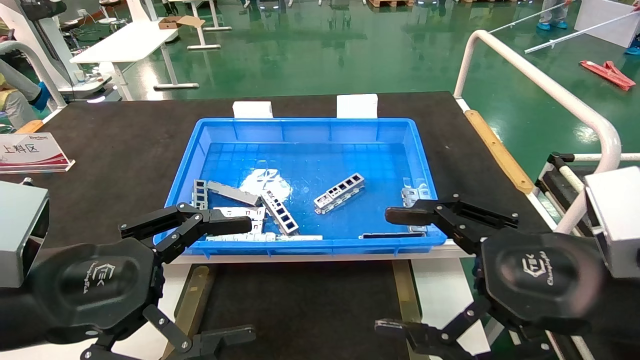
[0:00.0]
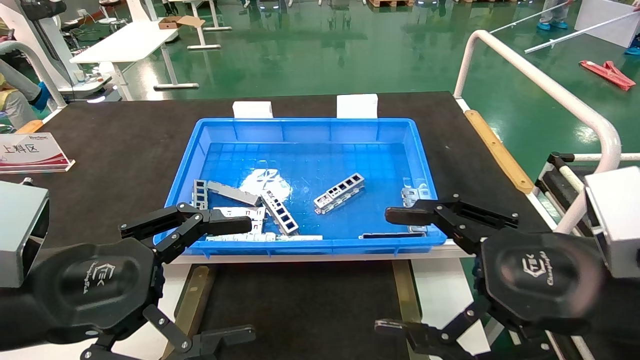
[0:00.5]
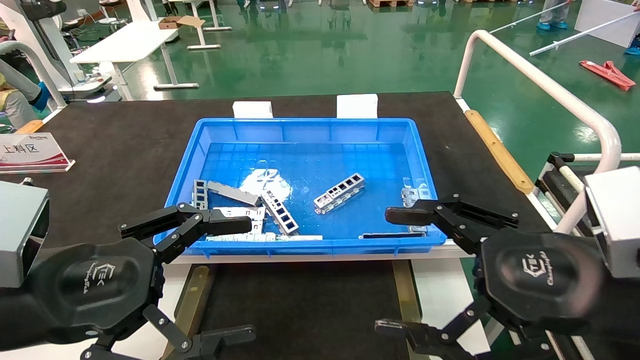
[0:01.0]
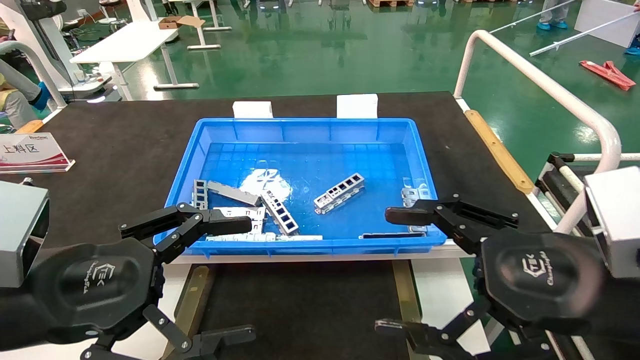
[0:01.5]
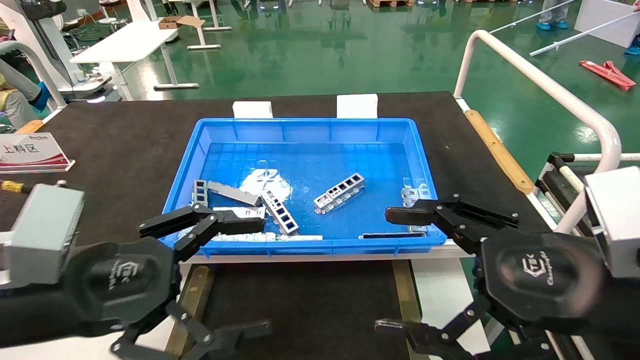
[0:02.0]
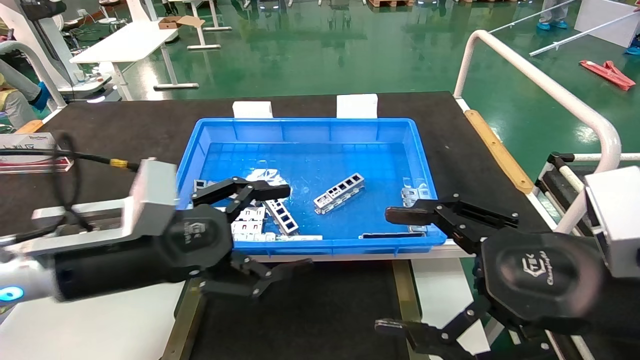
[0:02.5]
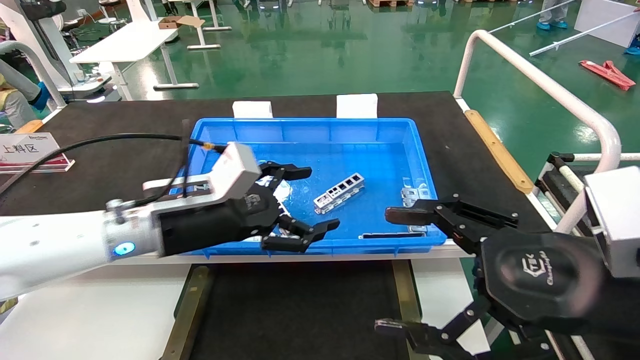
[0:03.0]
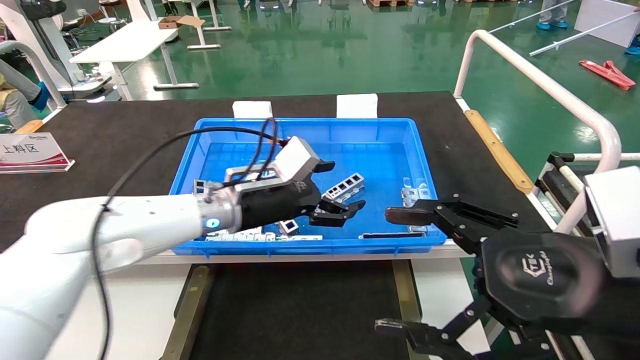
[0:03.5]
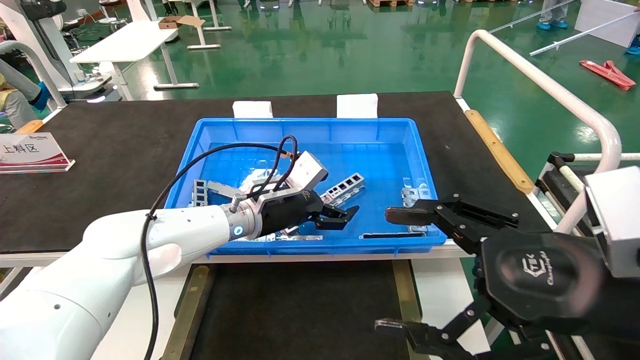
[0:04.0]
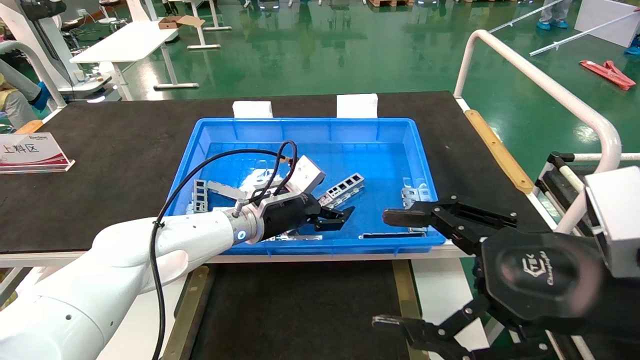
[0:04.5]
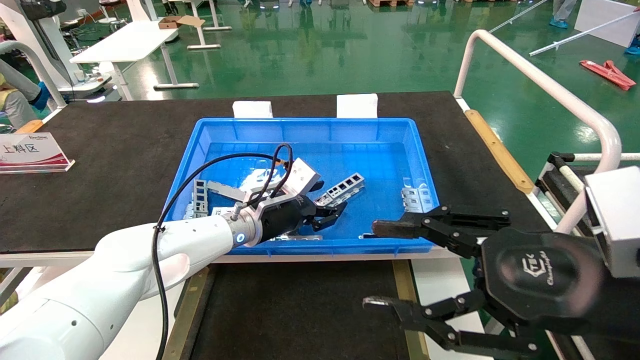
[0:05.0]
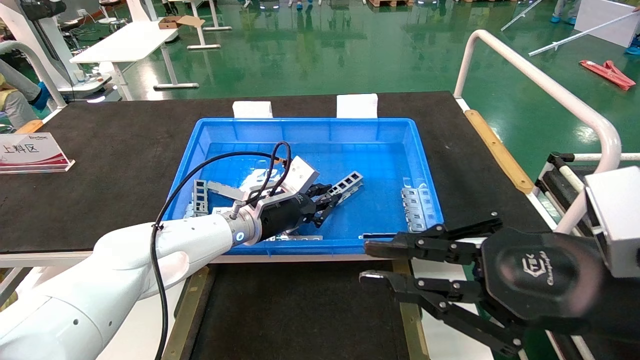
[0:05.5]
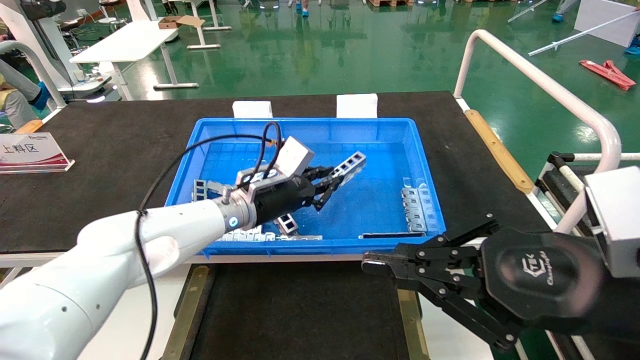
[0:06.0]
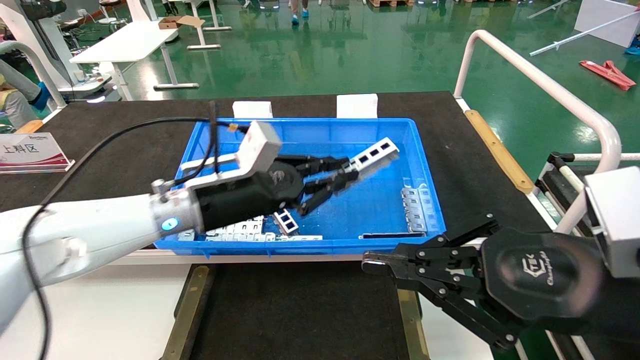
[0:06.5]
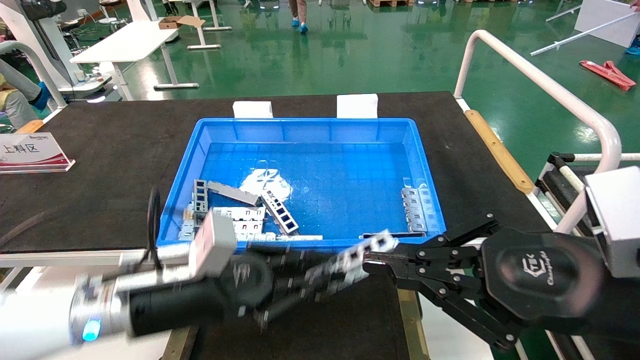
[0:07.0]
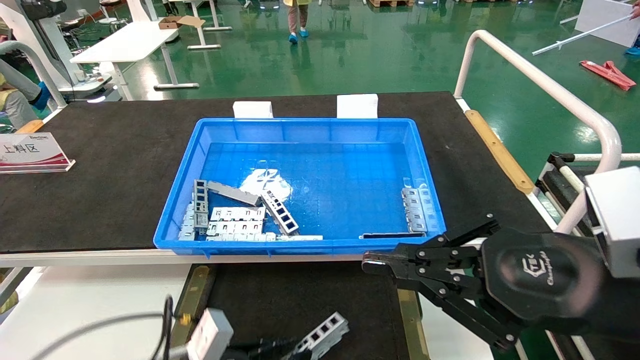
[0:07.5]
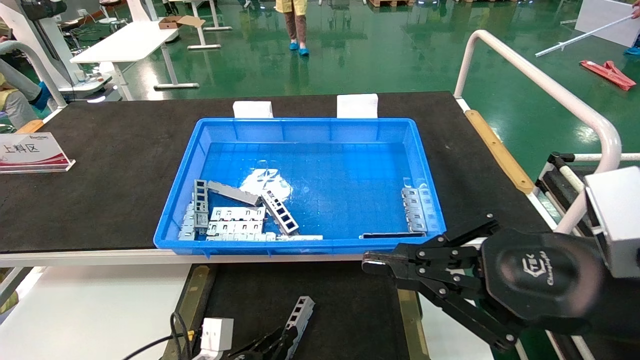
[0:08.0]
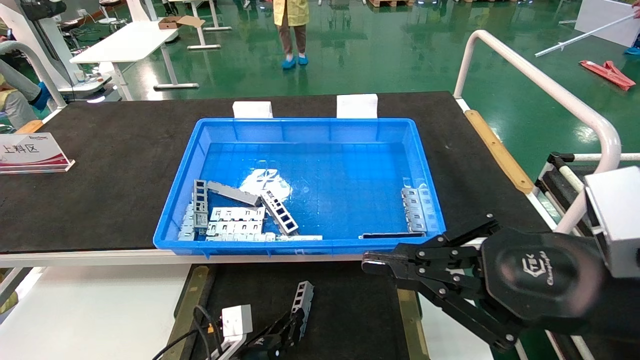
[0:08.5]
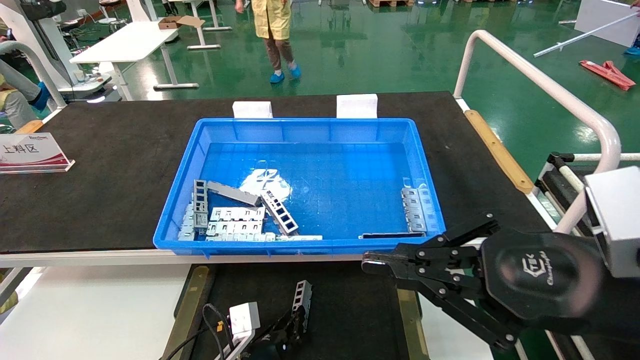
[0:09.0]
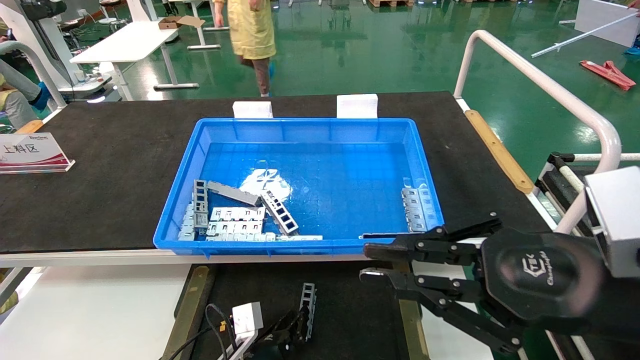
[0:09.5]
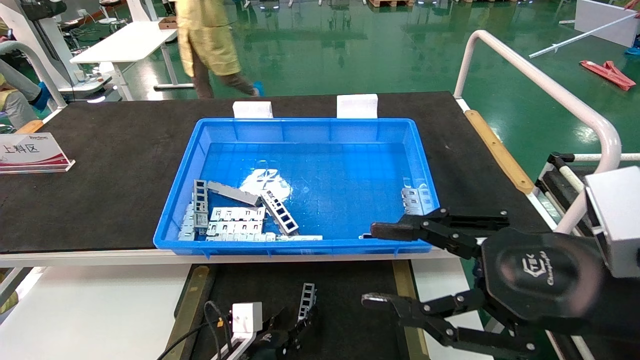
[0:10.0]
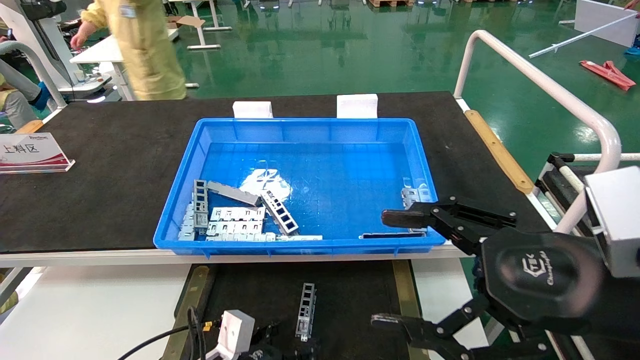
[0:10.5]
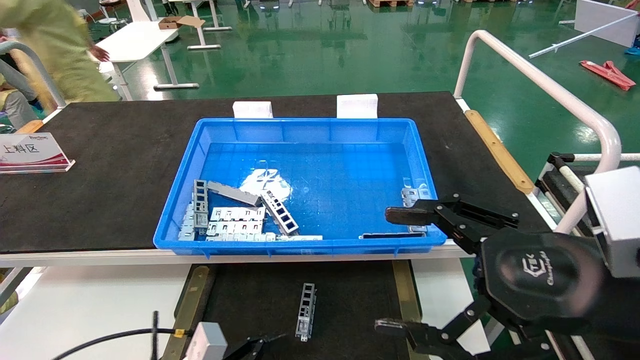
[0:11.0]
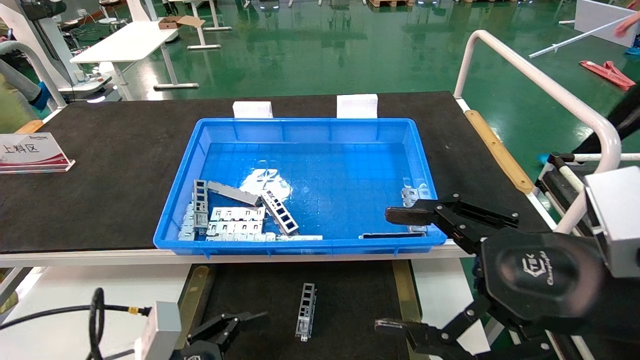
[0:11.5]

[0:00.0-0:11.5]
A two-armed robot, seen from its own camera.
Task of the whole recording: Grasp the part with one hand and place it on the black container.
Step, 0:02.0 to 0:05.5: Pick up the front USB bracket from the feeding area.
Step, 0:06.0 to 0:09.5: Place the front USB bracket into the box.
0:00.0 to 0:02.0: The grippers move only a little.
0:02.0 to 0:04.0: The left gripper goes approximately 30 cm forward and to the right.
0:04.0 to 0:06.0: The right gripper closes up, while the left gripper closes up.
0:06.0 to 0:07.5: The left gripper shifts roughly 30 cm backward, downward and to the left.
0:07.5 to 0:09.5: The left gripper shifts approximately 15 cm downward, to the right and forward.
0:09.5 to 0:11.5: The right gripper opens its fingers, while the left gripper travels upward, backward and to the left by approximately 20 cm, and opens up.

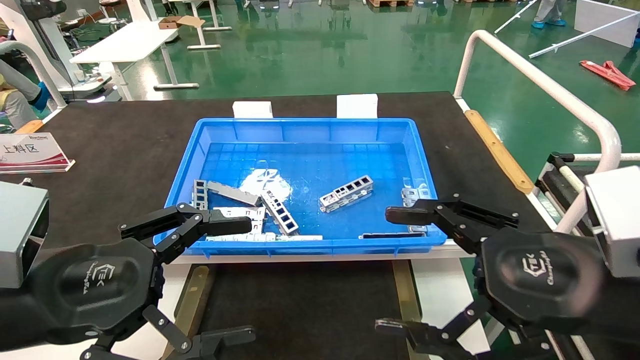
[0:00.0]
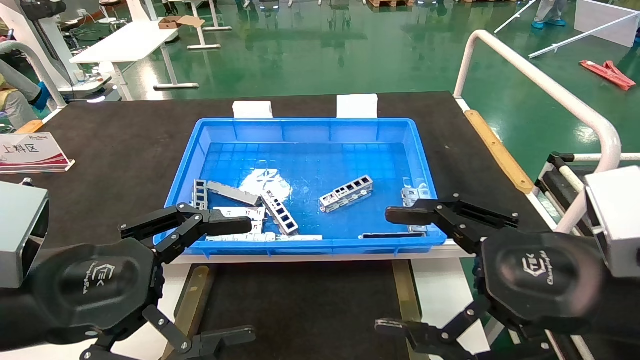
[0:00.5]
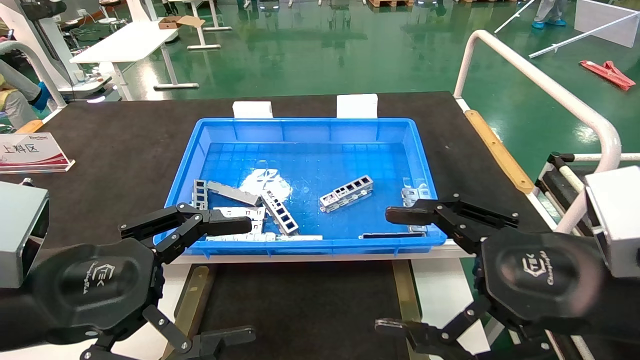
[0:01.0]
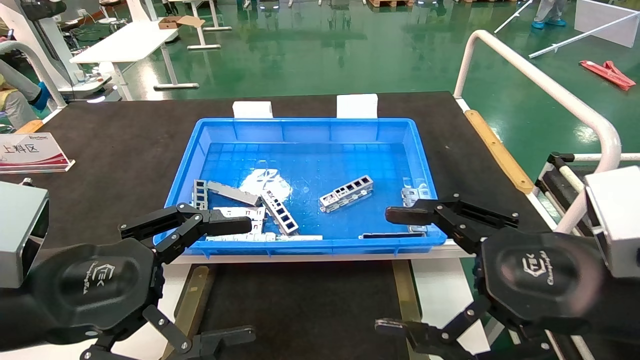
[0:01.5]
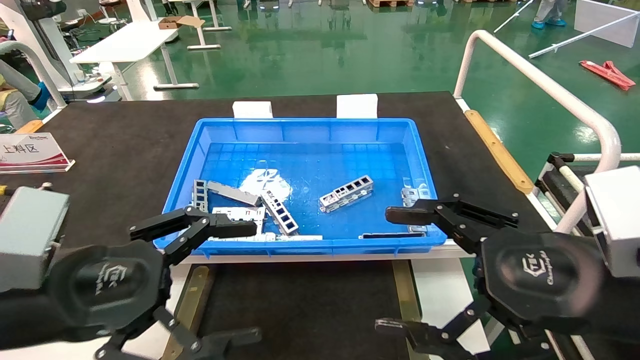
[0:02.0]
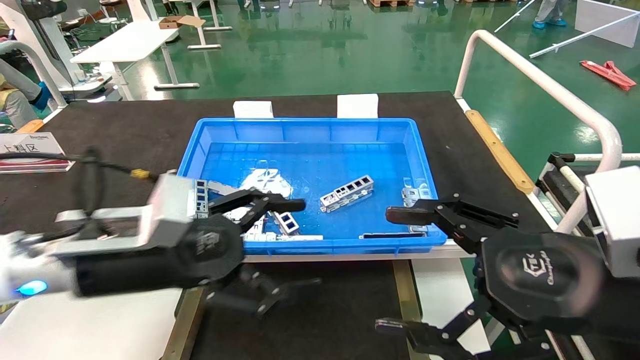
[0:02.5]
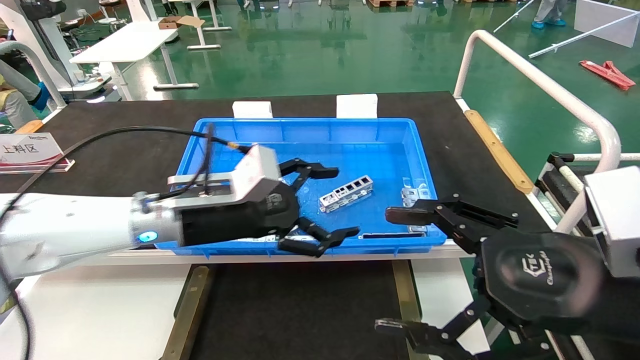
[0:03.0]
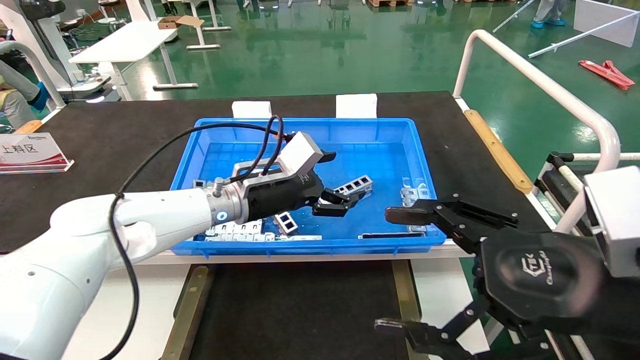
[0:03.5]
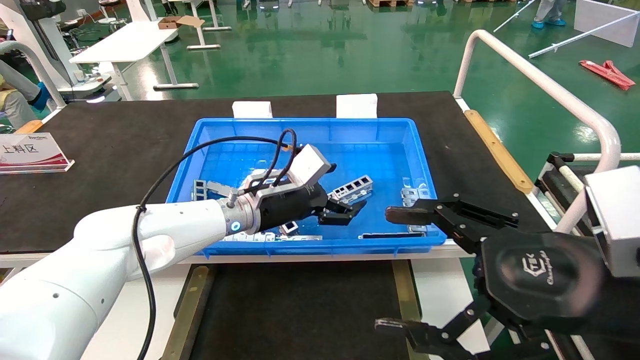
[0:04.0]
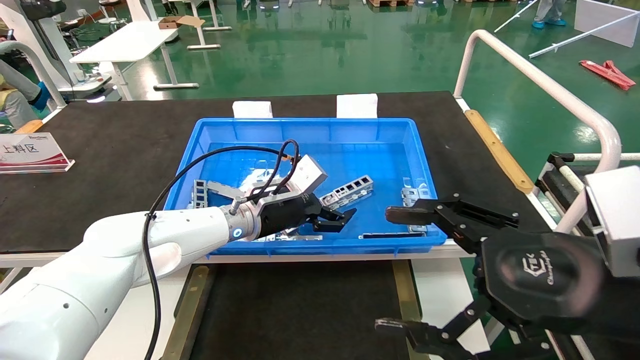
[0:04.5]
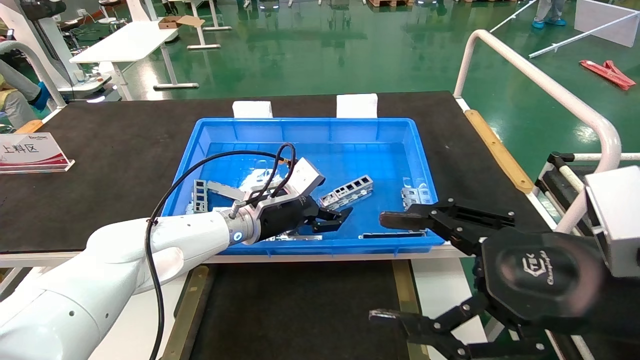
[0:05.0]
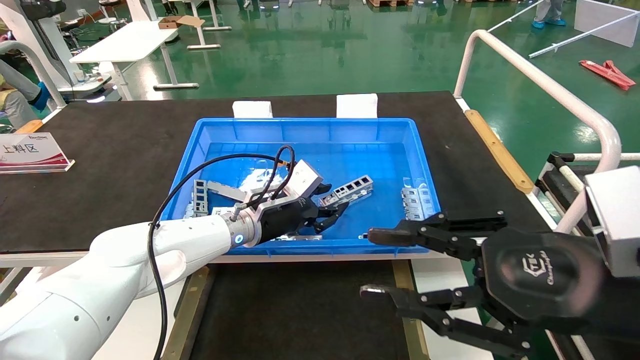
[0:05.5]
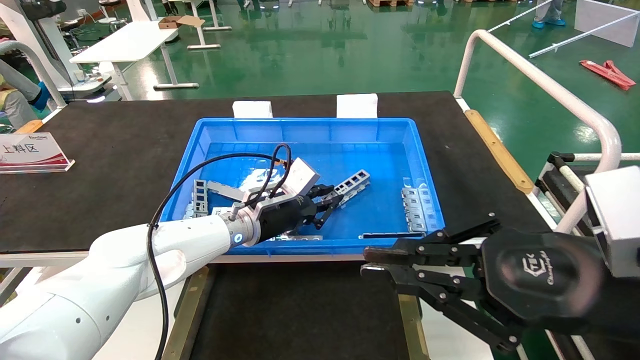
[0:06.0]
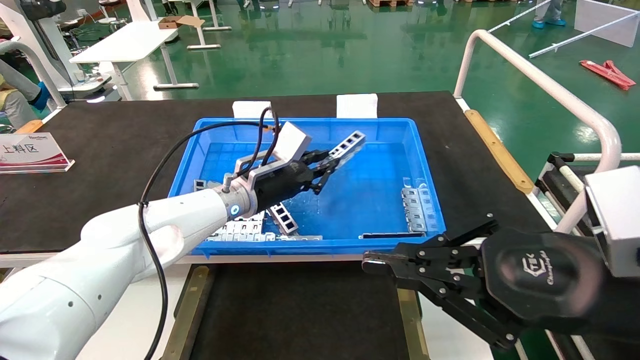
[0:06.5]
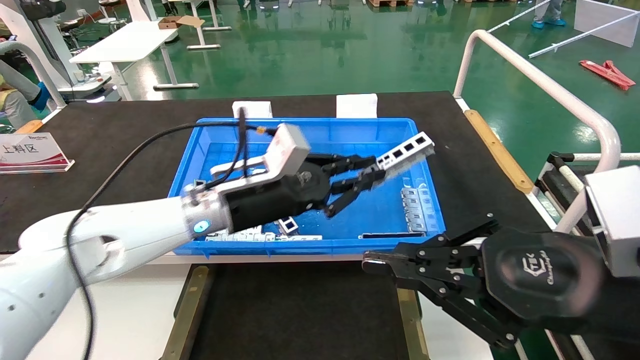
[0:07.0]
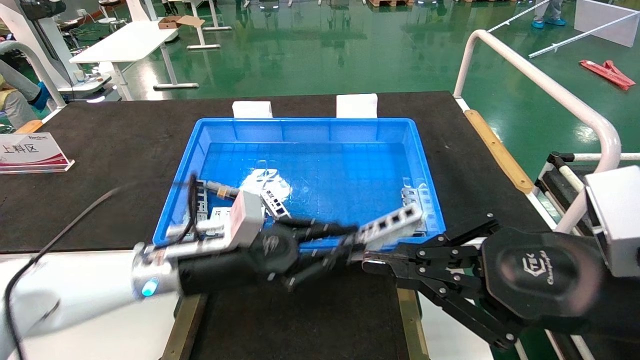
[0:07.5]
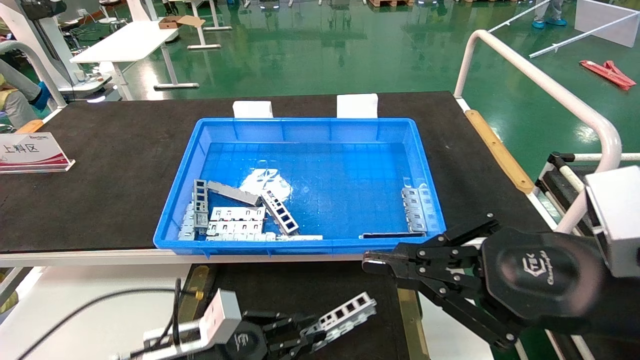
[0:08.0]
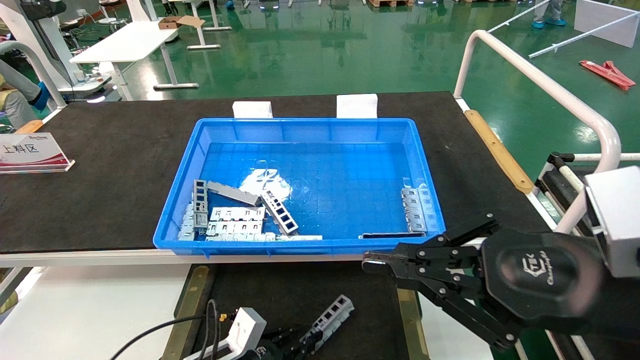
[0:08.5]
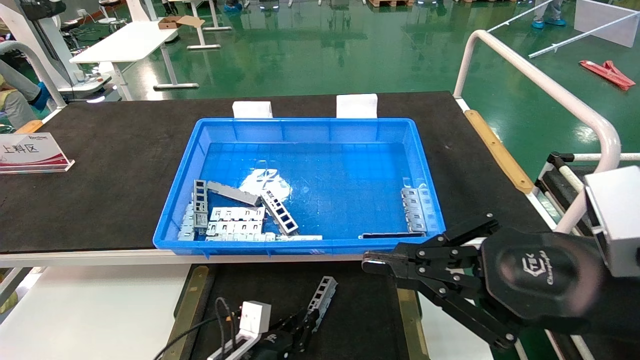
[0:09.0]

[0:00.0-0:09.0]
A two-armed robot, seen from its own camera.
Task of the whole recording: Grasp the part with one hand and place it on the black container.
Step, 0:02.0 to 0:06.0: Pick up the front USB bracket from the feeding area.
0:00.0 to 0:02.0: The grippers make only small movements.
0:02.0 to 0:04.5: The left gripper travels forward and to the right by about 30 cm.
0:04.5 to 0:07.0: The left gripper shifts about 5 cm backward, and closes up. Meanwhile the right gripper closes its fingers.
0:07.0 to 0:09.0: The left gripper goes some 30 cm downward.
